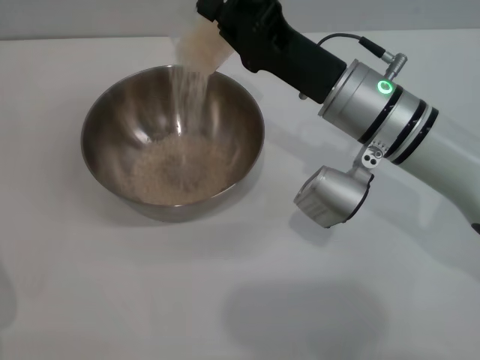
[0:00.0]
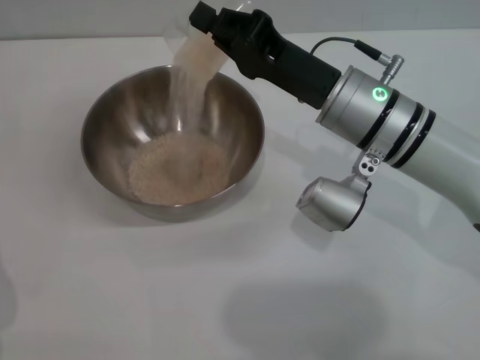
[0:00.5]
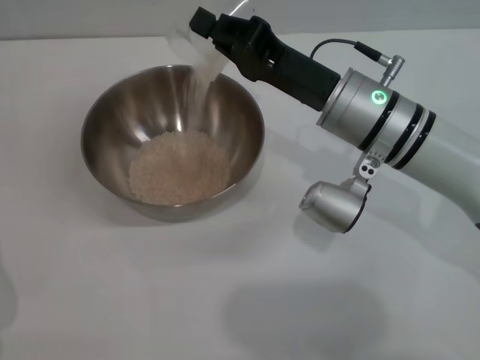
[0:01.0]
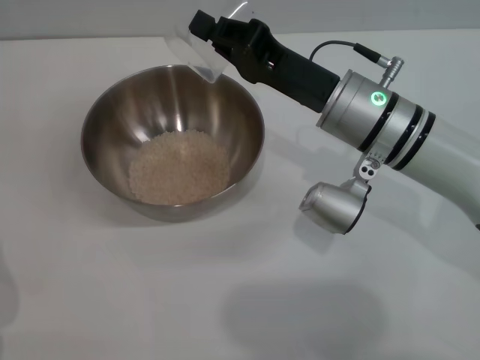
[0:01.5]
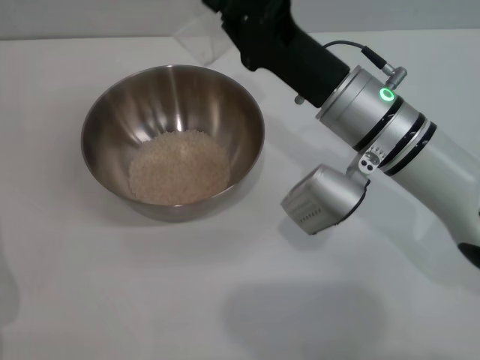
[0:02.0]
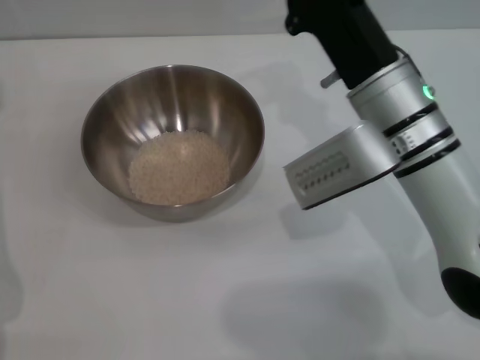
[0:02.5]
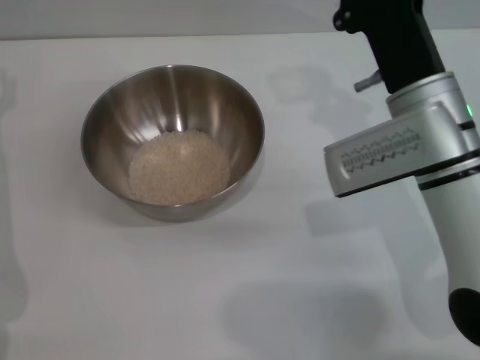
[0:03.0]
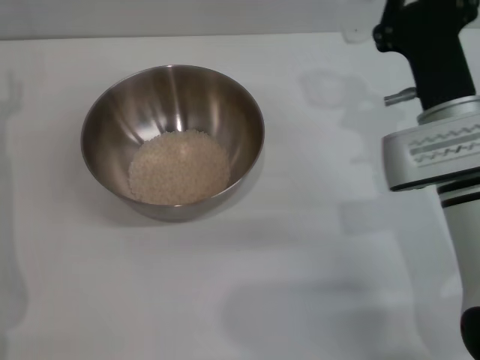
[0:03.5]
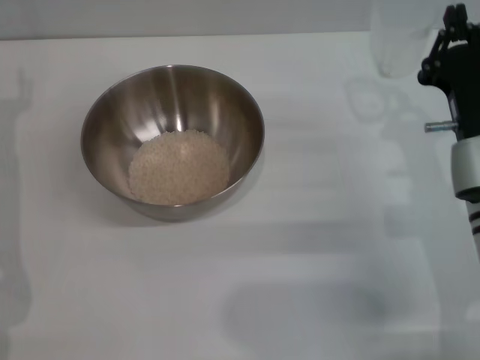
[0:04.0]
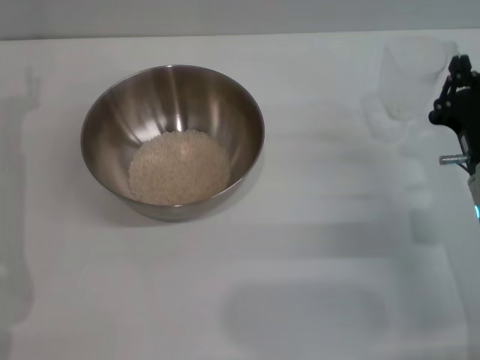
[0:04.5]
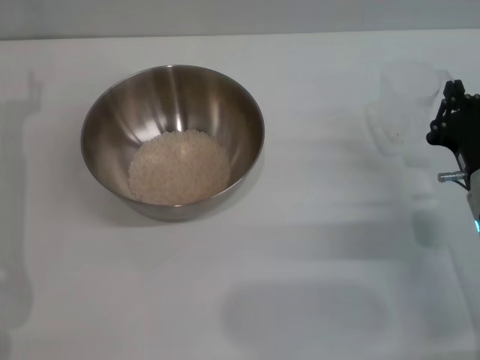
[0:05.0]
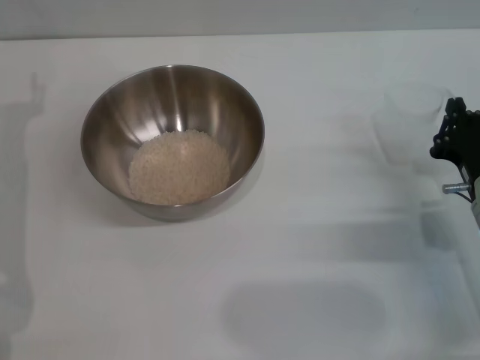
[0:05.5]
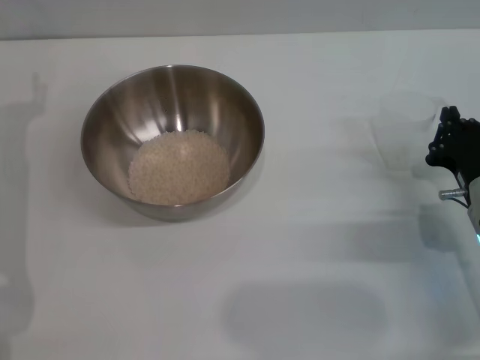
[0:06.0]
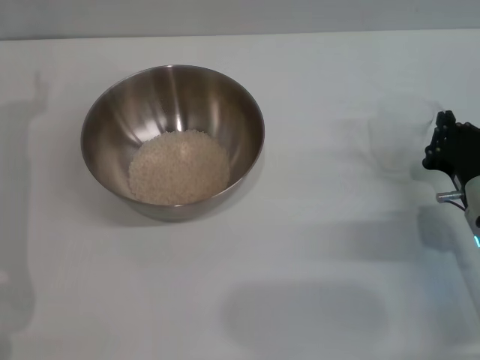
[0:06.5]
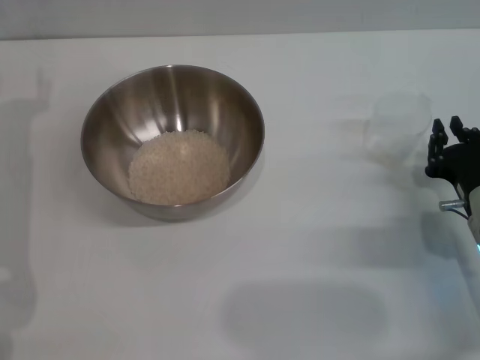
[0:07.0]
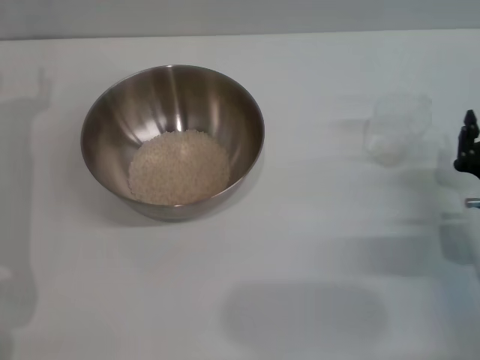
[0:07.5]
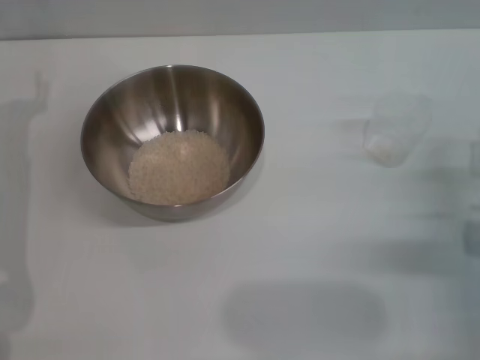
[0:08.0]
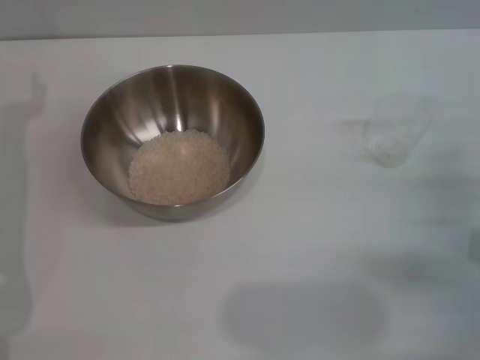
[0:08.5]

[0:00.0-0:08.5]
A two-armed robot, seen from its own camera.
Task of the whole recording: Place the bowl in the middle of the table with one hand and pour the rice from the grain cup into it with the other hand.
Step, 0:02.0 to 0:07.0: Place the cup on the table with the right gripper.
0:00.0 to 0:02.0: The grippers make only small movements.
0:02.0 to 0:04.0: The right gripper heads to the right and backward, covering roughly 10 cm.
0:04.0 to 0:06.5: The right gripper goes some 5 cm downward.
0:06.5 to 0:08.5: The right gripper moves approximately 5 cm, and opens its fingers.
